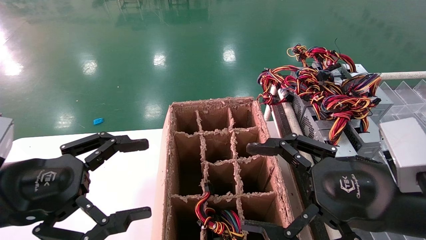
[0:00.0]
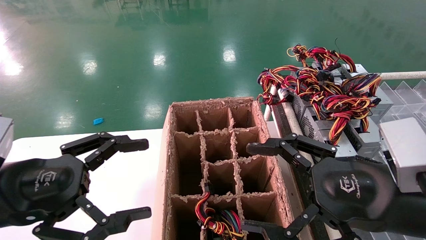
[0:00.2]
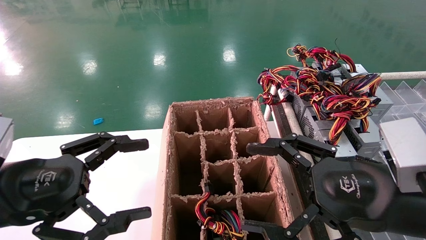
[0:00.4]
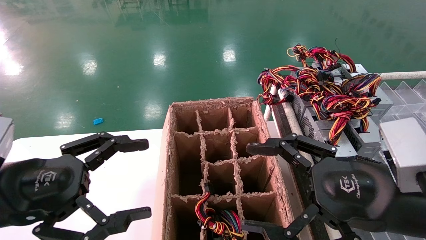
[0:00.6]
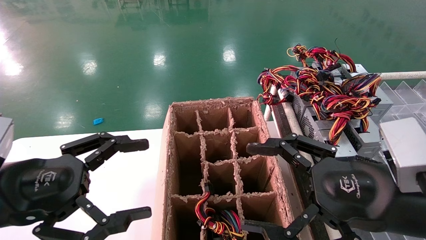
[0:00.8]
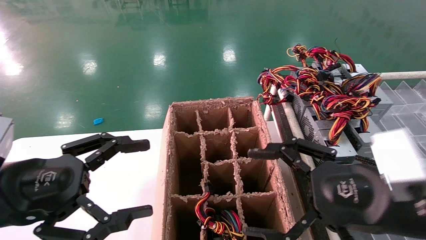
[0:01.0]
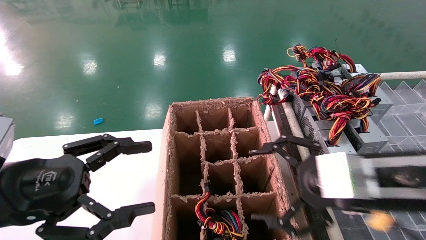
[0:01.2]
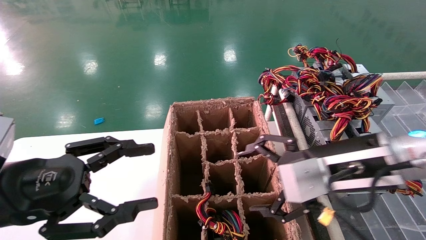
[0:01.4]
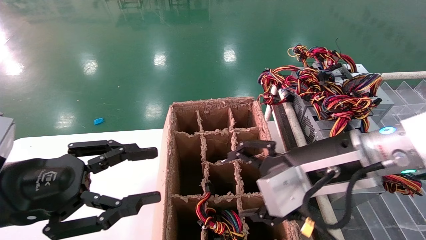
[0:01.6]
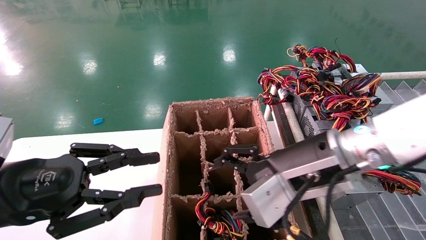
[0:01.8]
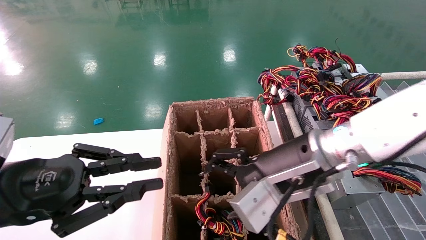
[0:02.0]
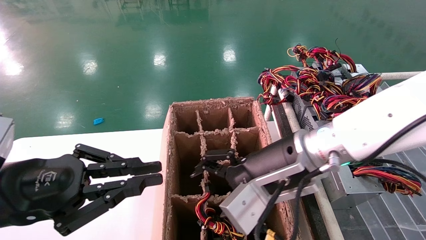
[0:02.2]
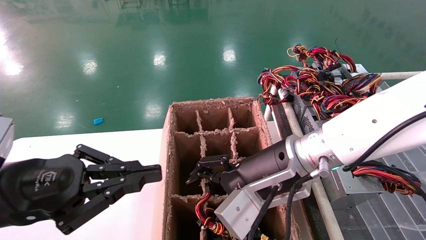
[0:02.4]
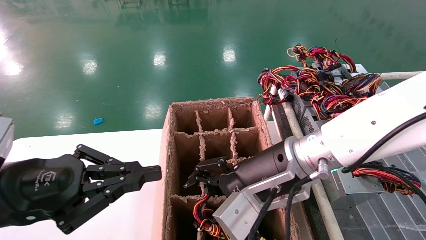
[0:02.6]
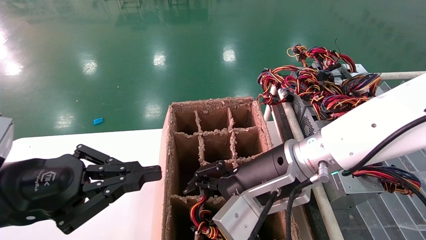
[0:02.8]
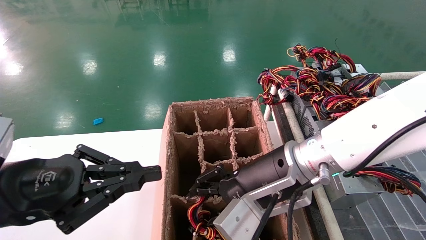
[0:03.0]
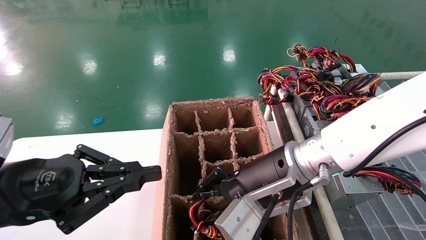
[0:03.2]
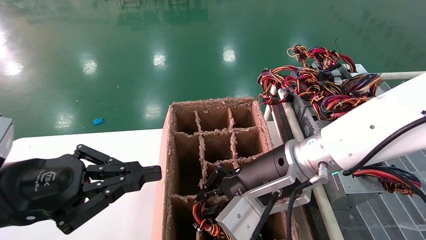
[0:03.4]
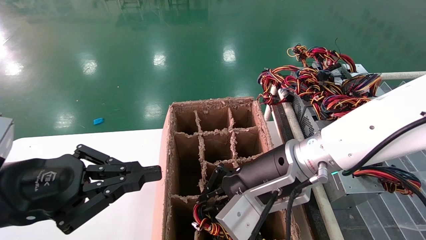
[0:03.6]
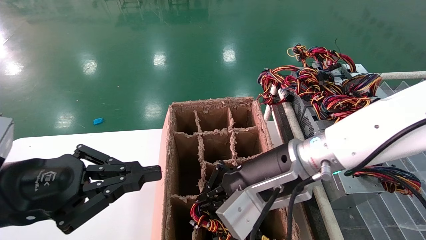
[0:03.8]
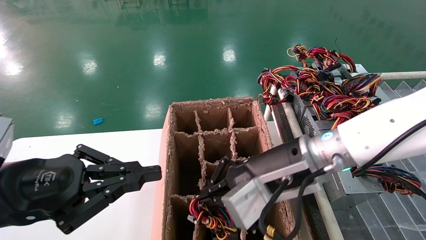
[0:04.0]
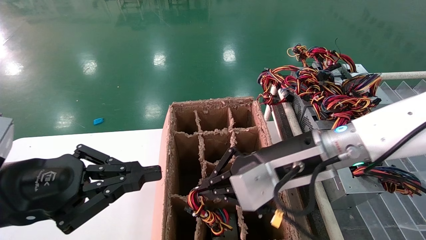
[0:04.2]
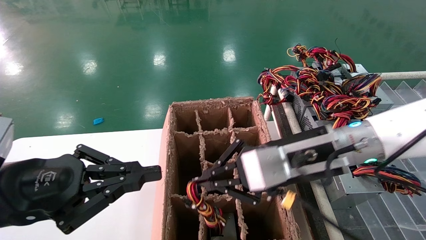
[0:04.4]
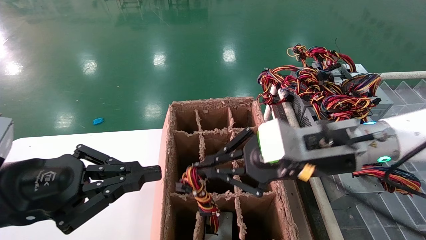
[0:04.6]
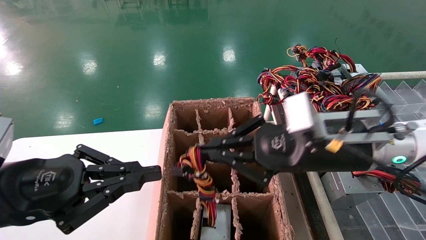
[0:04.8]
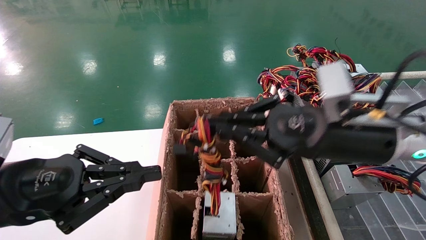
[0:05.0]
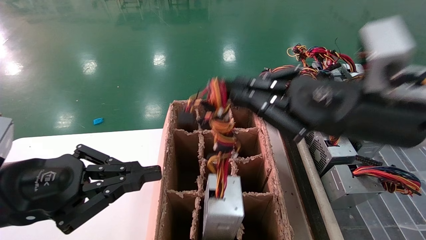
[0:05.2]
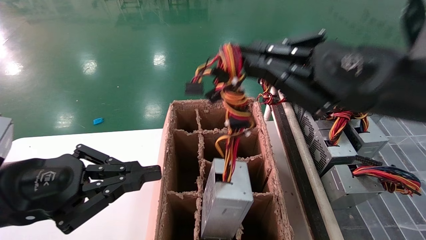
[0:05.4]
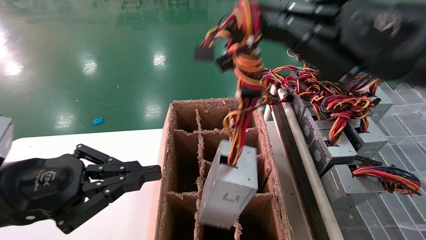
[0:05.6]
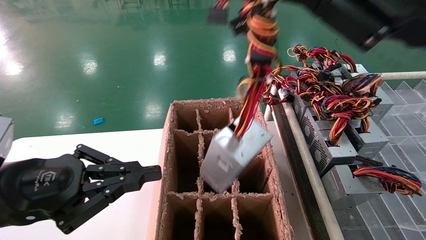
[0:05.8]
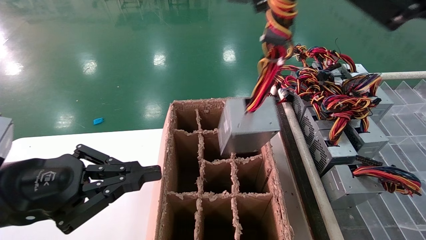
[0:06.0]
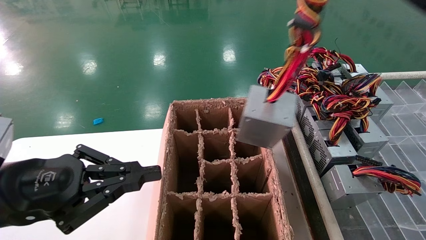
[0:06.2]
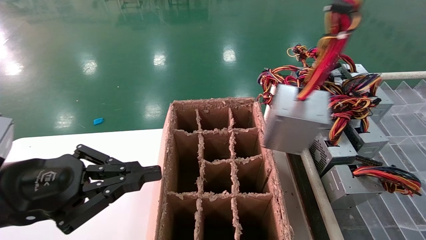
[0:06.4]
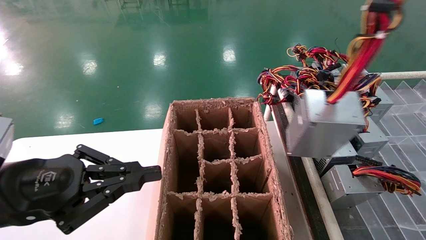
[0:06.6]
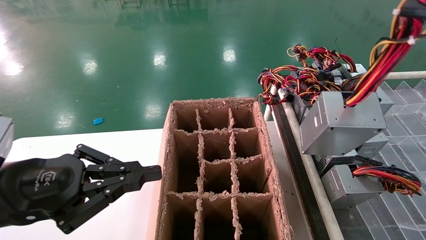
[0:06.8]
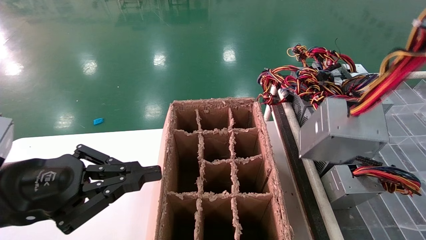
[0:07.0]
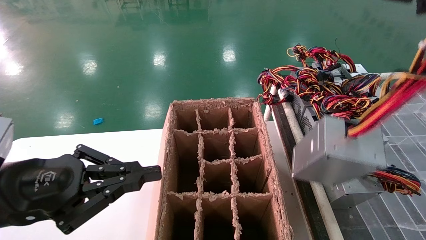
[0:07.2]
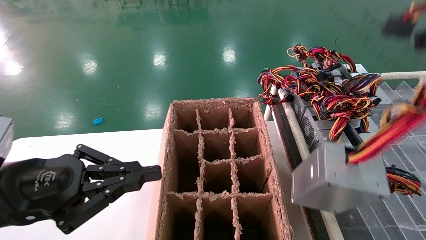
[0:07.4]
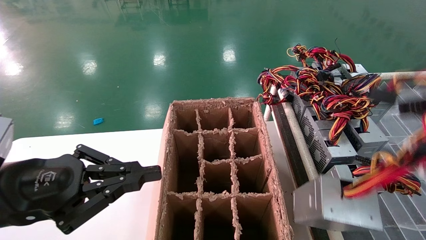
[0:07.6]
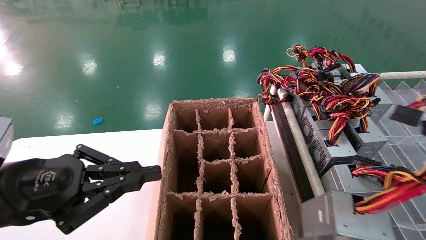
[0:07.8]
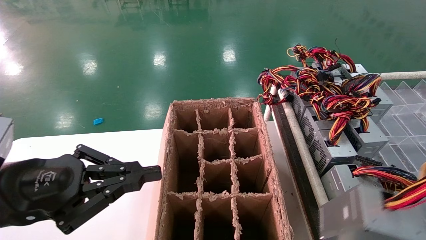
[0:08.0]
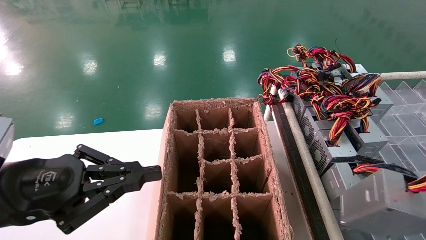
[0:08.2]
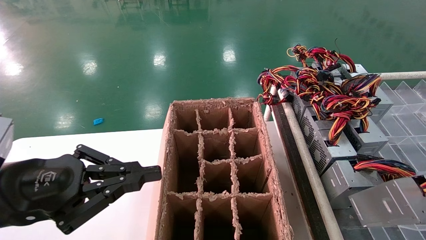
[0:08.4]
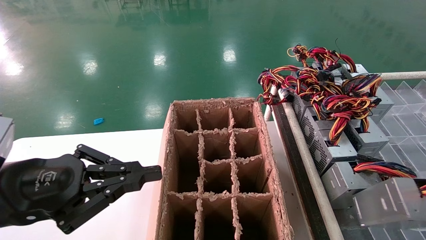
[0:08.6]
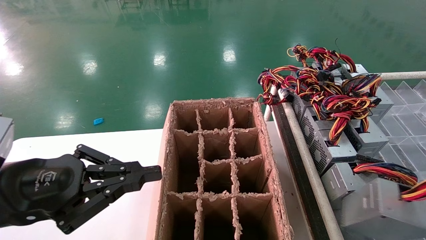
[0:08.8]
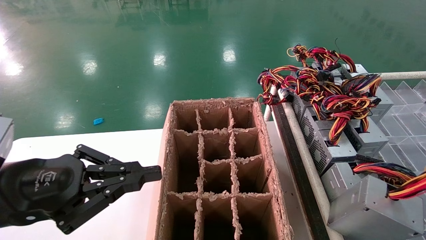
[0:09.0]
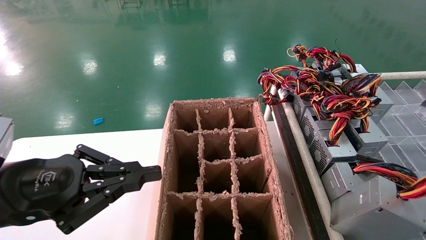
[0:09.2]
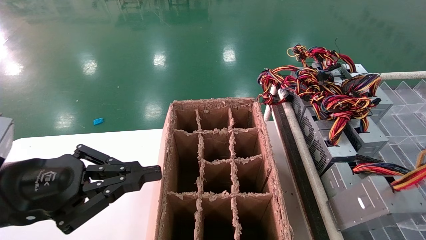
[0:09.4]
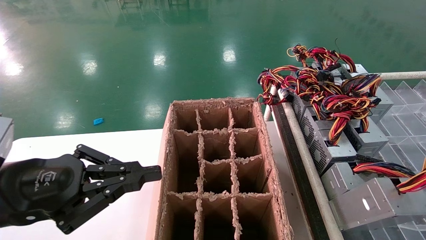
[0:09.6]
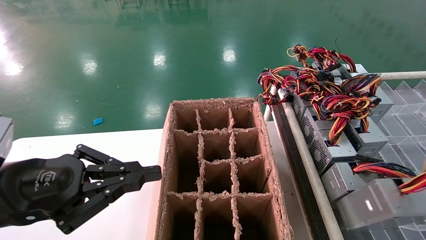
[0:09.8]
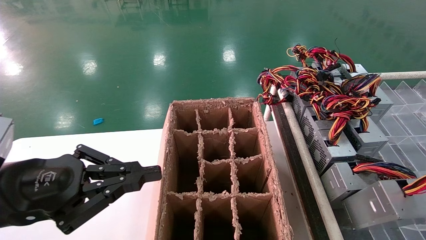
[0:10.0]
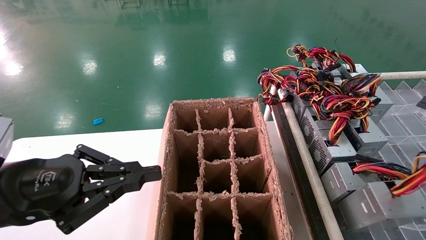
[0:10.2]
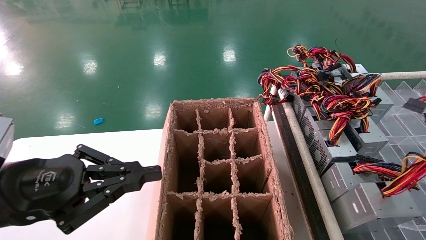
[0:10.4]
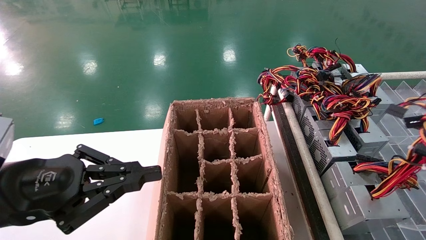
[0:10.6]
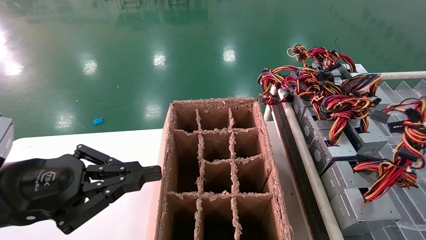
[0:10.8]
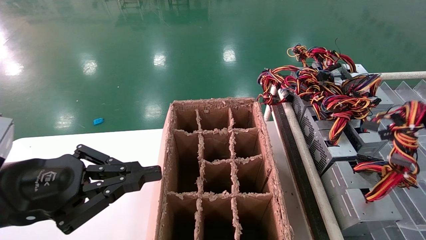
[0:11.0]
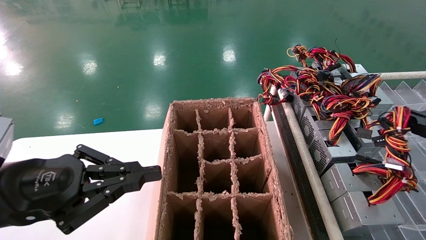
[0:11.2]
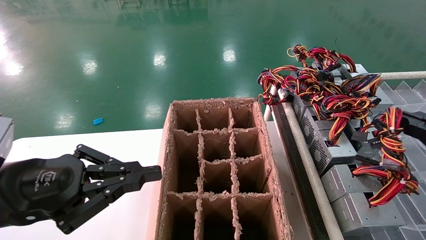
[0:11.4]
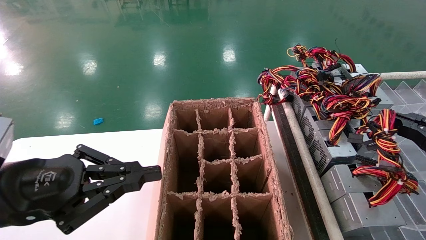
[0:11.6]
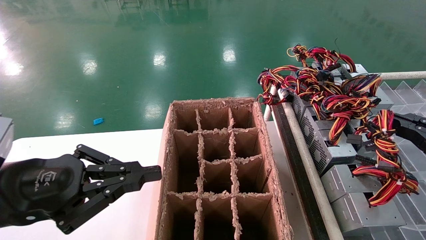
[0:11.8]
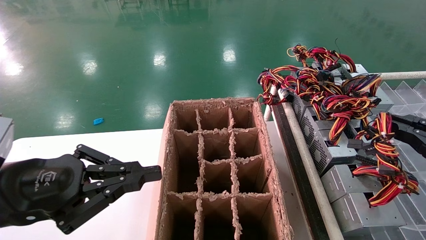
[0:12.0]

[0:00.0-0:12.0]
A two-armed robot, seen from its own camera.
Step, 0:01.4 to 0:04.0: Grab the main unit power supply from the containment box.
0:00.0 to 0:01.6: The right gripper moves forward and to the left, approximately 10 cm.
0:01.6 to 0:03.0: The right gripper shifts some 5 cm to the left; the left gripper closes up.
0:03.0 to 0:04.4: The right gripper travels to the right by about 5 cm, and closes up.
0:04.4 to 0:06.0: The right gripper is displaced upward, to the right and backward by some 25 cm.
0:06.0 to 0:07.6: The right gripper shifts some 20 cm backward, to the right and downward.
0:07.6 to 0:09.0: The right gripper heads downward, covering some 5 cm.
0:09.0 to 0:10.4: The grippers stay close to where they were, moving slightly.
0:10.4 to 0:12.0: The right gripper heads forward, covering about 5 cm.

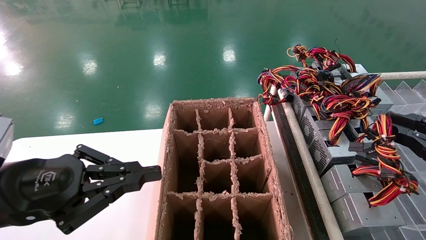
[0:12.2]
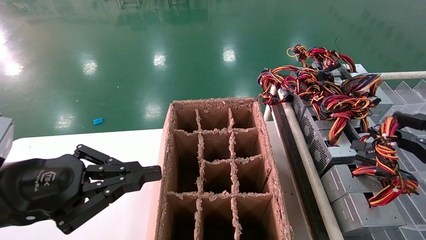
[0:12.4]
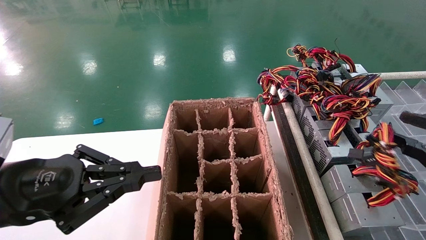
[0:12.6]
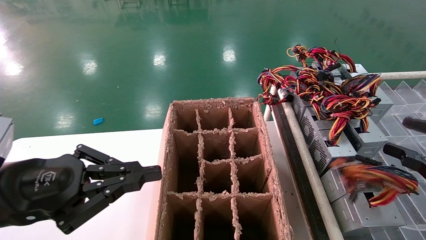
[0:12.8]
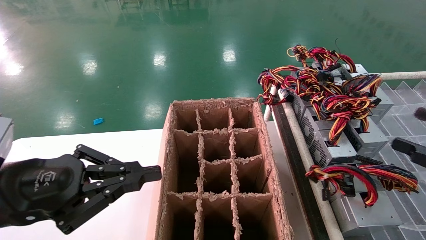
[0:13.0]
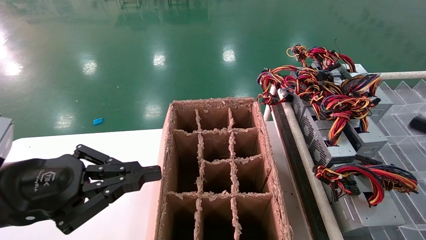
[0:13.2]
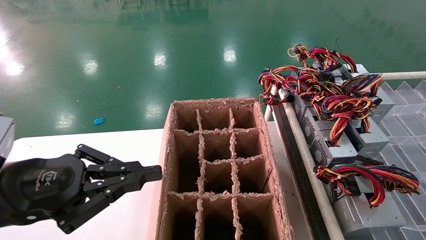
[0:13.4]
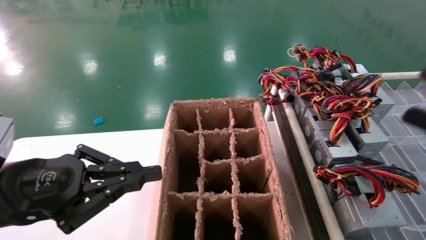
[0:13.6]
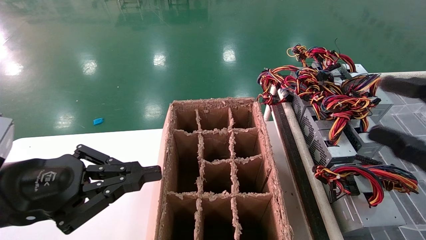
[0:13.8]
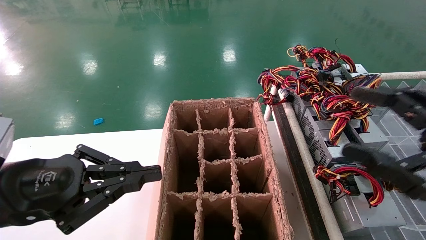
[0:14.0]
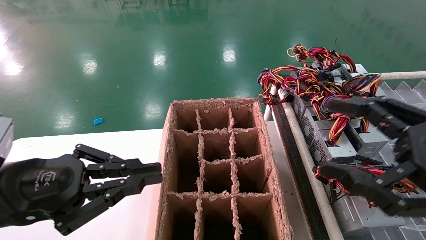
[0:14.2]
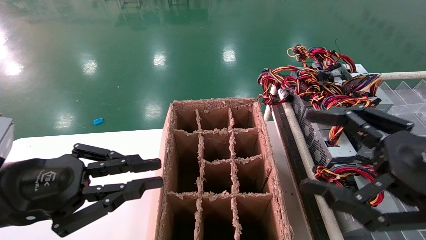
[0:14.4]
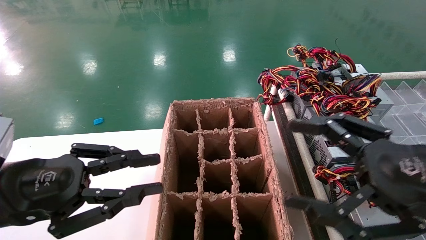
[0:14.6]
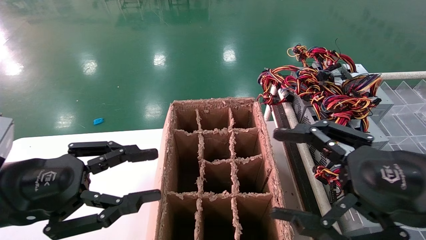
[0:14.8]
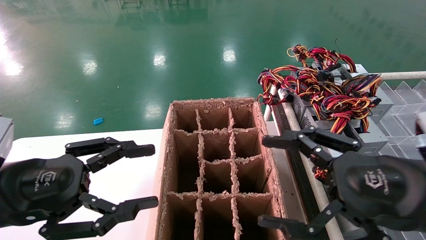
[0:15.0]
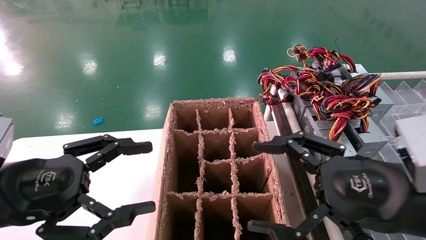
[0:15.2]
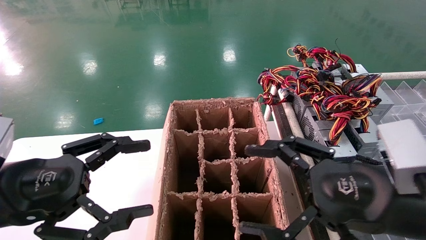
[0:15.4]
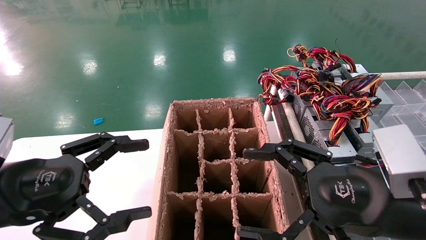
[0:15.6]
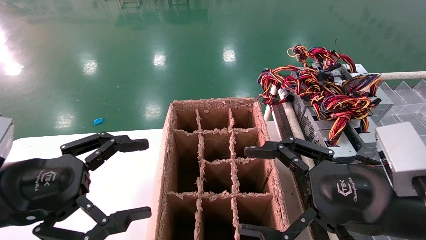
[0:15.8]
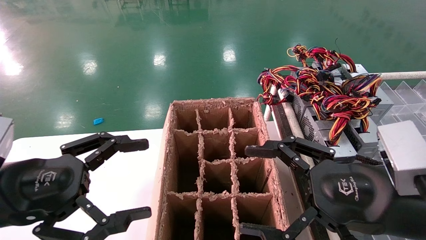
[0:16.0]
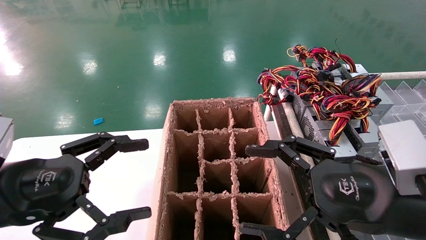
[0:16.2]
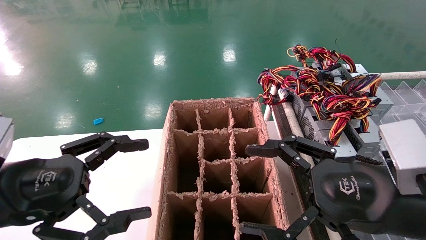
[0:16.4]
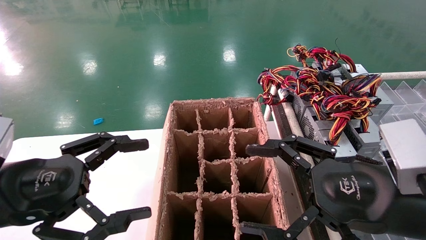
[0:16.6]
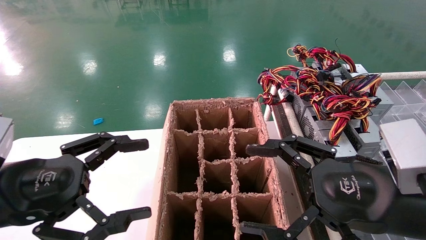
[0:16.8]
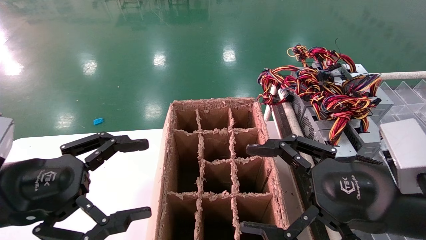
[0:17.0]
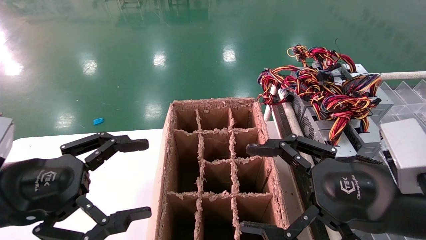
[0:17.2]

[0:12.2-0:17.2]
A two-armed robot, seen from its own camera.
0:12.2 to 0:13.8: The right gripper is displaced to the left by roughly 5 cm, and opens.
0:13.8 to 0:15.6: The left gripper opens its fingers. The right gripper heads to the left, covering about 15 cm.
0:15.6 to 0:17.2: Both grippers stay put.
